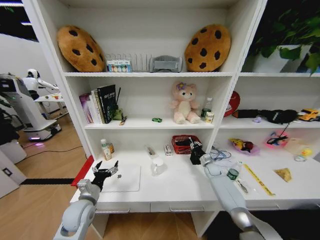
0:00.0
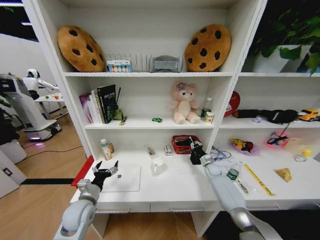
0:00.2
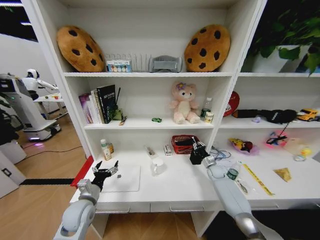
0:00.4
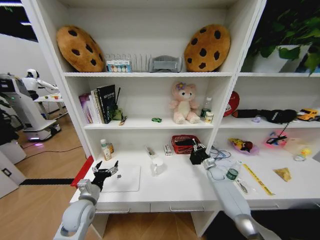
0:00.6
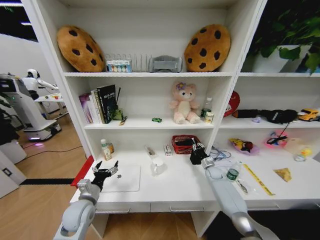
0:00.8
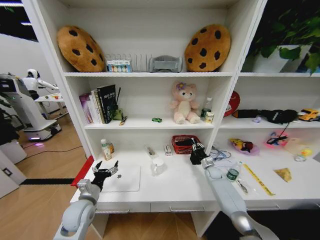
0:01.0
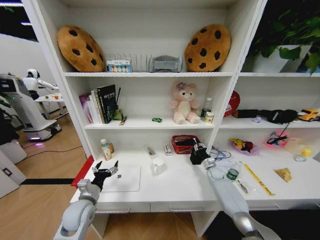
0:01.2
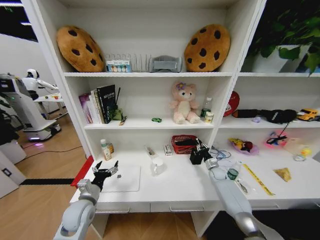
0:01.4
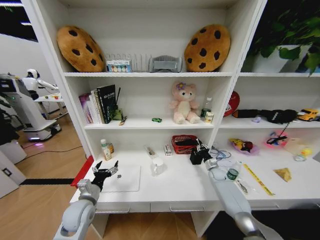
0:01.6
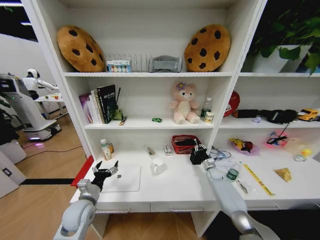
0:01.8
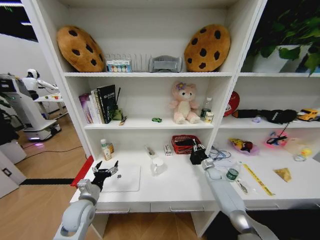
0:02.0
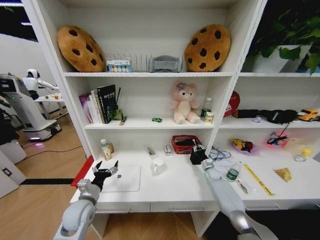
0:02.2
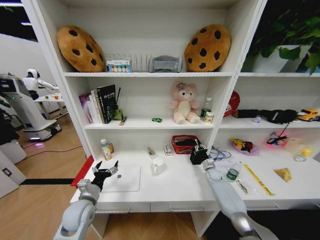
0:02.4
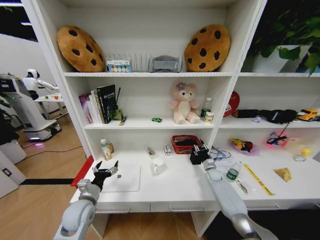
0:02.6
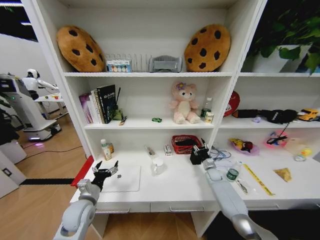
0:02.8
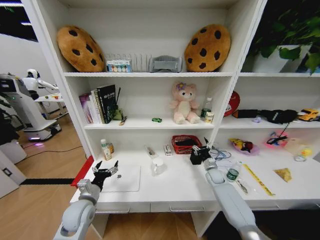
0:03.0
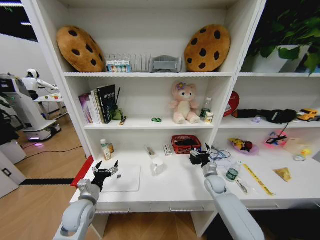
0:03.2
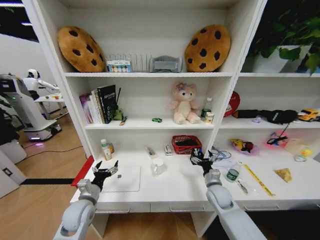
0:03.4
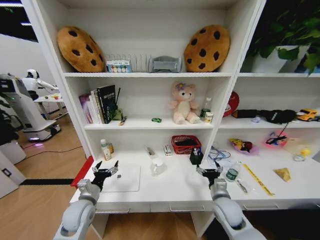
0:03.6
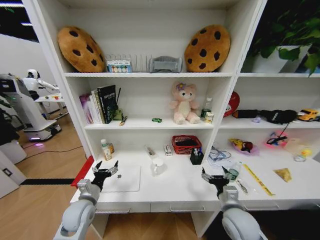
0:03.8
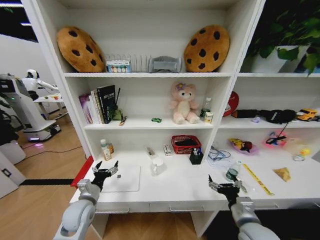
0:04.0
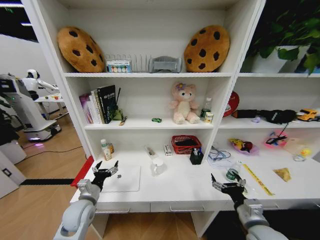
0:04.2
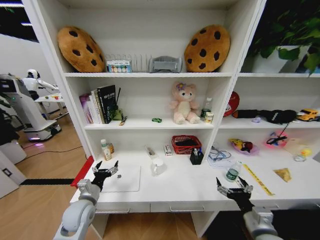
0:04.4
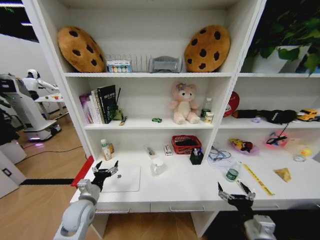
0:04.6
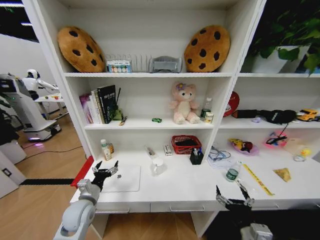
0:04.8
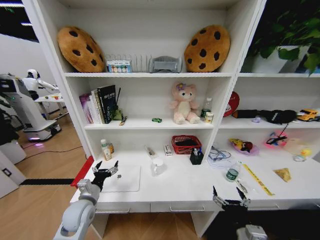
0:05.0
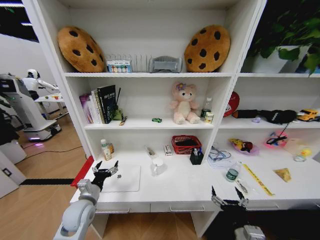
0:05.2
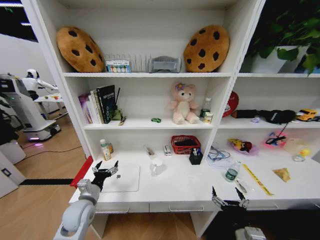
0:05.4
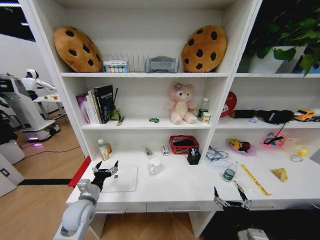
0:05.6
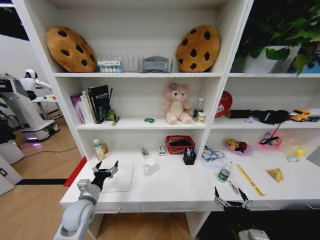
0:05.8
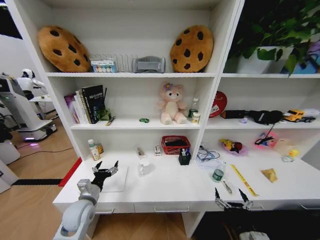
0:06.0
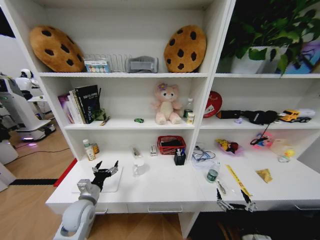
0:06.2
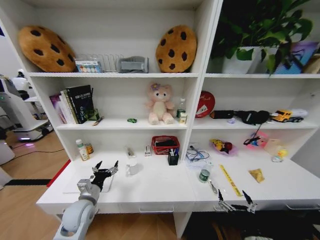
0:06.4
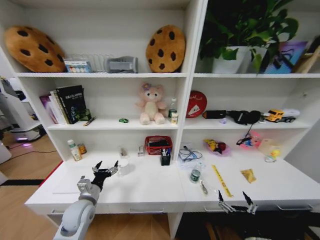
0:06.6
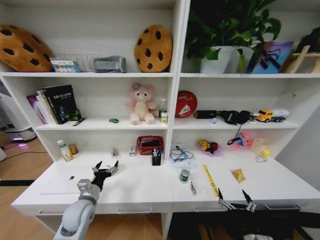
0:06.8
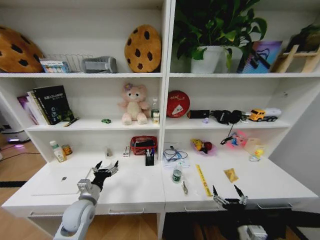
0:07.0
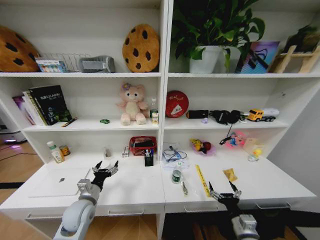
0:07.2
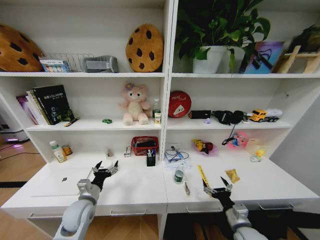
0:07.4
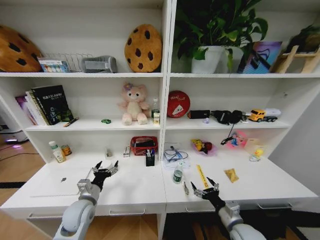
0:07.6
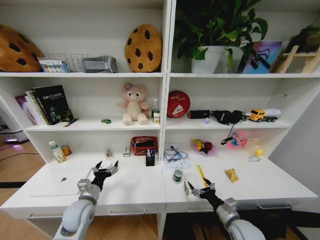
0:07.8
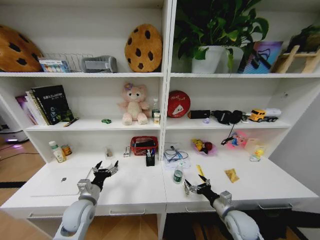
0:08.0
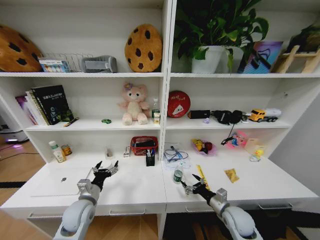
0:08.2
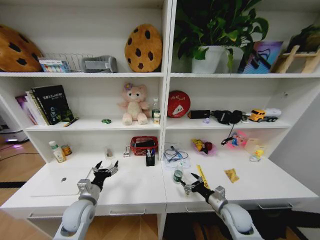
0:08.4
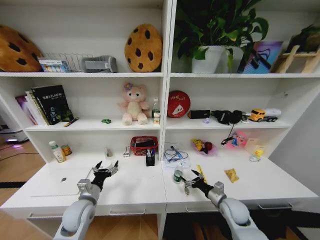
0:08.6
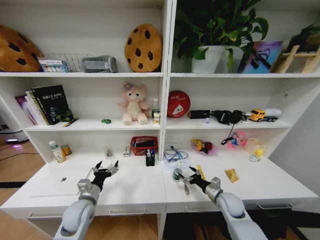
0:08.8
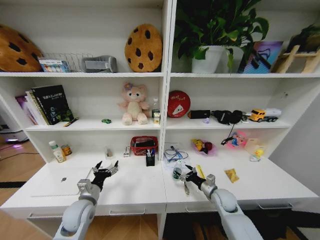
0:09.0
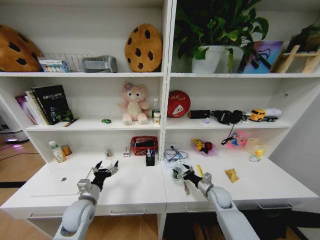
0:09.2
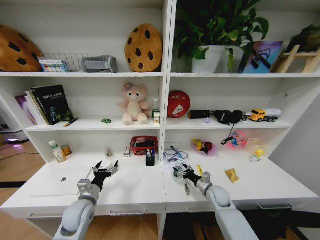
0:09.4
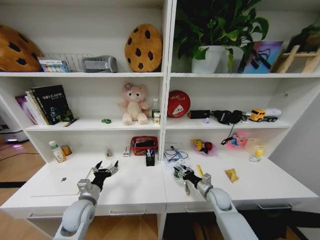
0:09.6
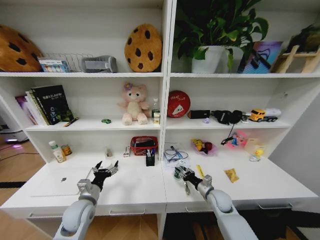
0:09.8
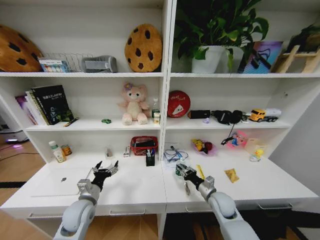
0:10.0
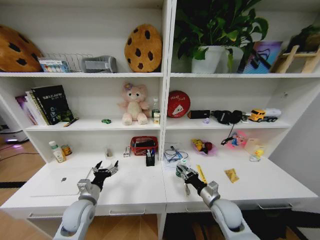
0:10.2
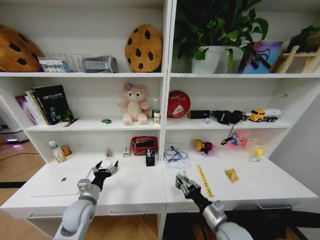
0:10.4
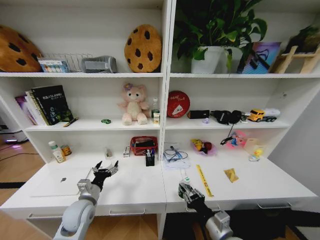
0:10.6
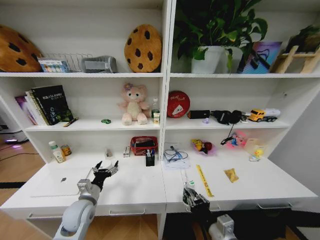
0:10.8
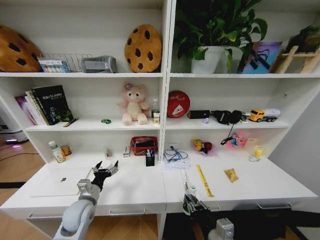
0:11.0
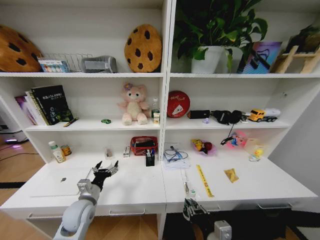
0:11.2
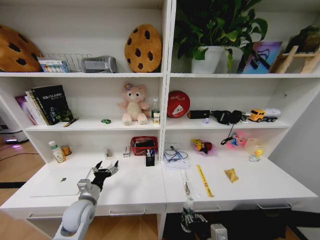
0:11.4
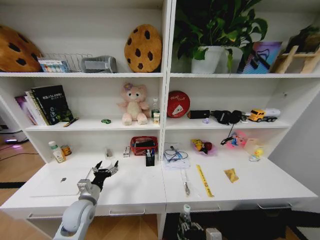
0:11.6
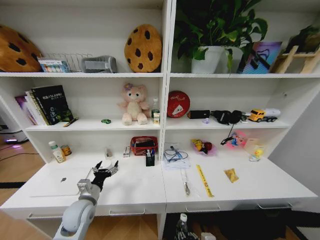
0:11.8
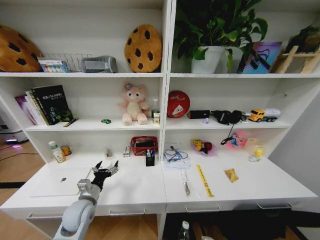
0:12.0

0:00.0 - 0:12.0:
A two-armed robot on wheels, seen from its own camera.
Task of the whole recording: Organize the objects on the table.
0:00.0 - 0:01.6: There are only small adjustments of the grippers.
0:01.6 - 0:03.0: The right gripper moves about 5 cm, and opens its fingers.
0:03.0 - 0:04.4: The right gripper goes roughly 30 cm backward.
0:04.4 - 0:06.0: The right gripper shifts approximately 5 cm backward.
0:06.0 - 0:07.6: The right gripper moves forward, some 10 cm.
0:07.6 - 0:09.0: The right gripper moves forward, approximately 15 cm.
0:09.0 - 0:10.4: The right gripper shifts approximately 20 cm backward, to the left and upward, and closes its fingers.
0:10.4 - 0:12.0: The right gripper goes approximately 10 cm backward and to the left.

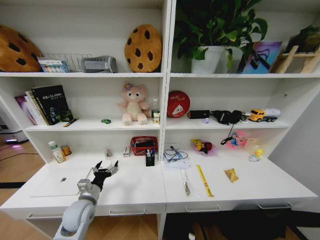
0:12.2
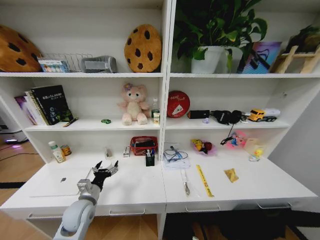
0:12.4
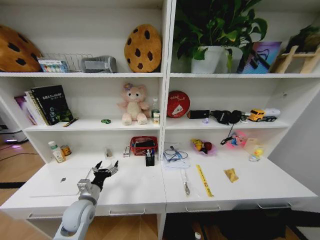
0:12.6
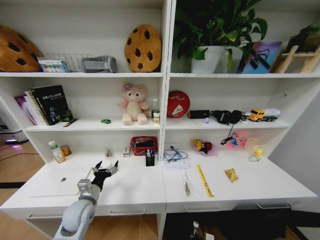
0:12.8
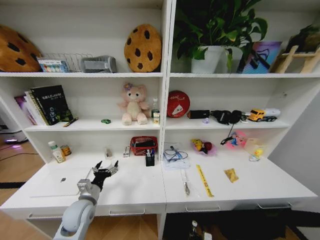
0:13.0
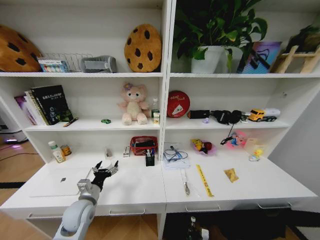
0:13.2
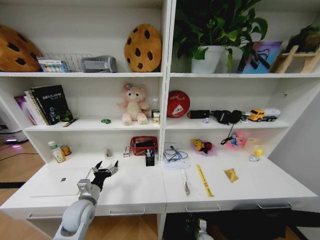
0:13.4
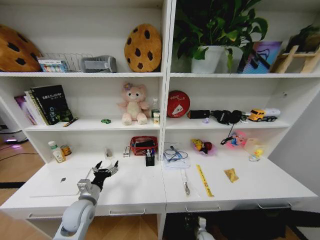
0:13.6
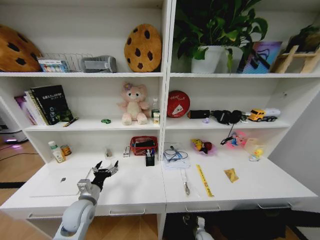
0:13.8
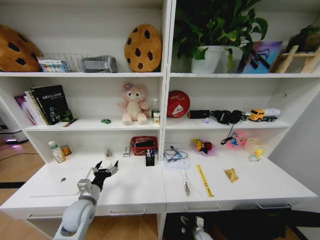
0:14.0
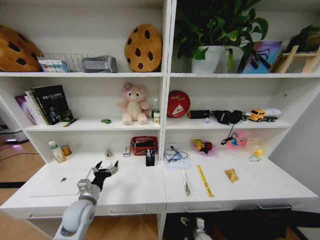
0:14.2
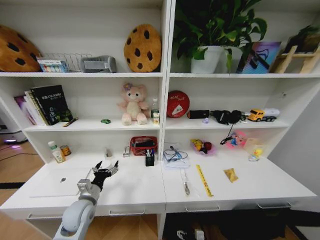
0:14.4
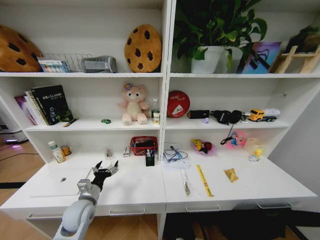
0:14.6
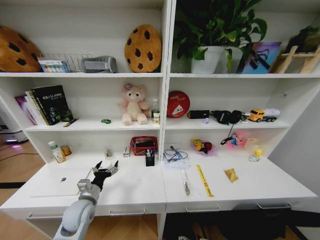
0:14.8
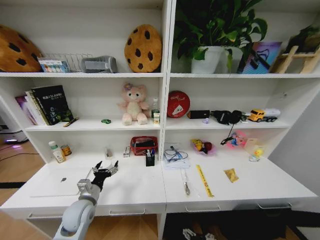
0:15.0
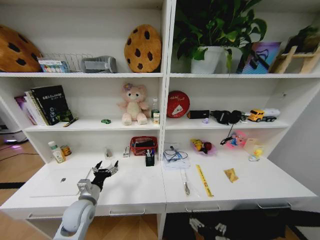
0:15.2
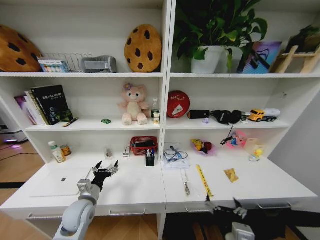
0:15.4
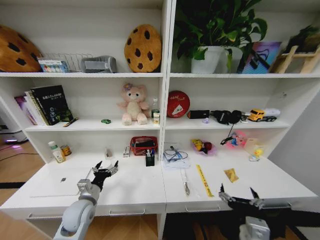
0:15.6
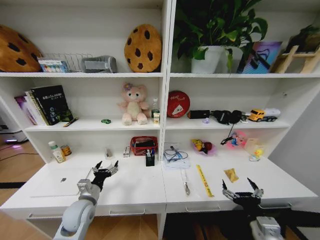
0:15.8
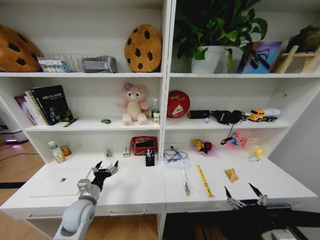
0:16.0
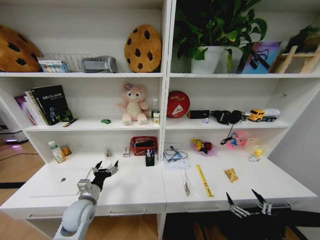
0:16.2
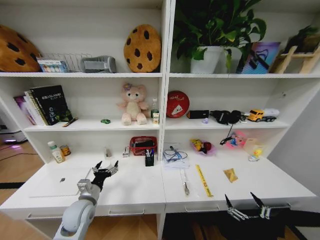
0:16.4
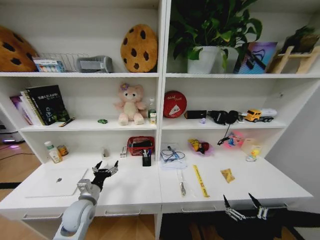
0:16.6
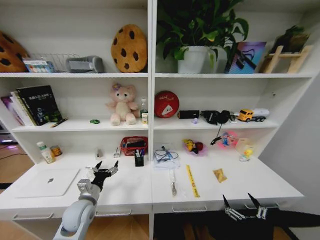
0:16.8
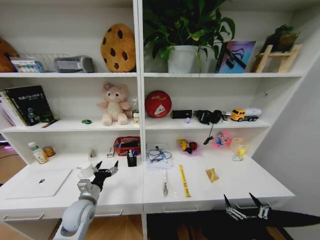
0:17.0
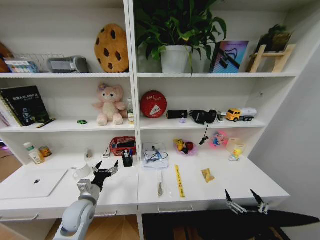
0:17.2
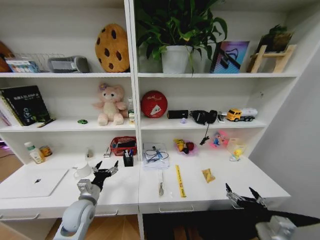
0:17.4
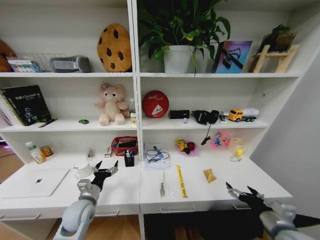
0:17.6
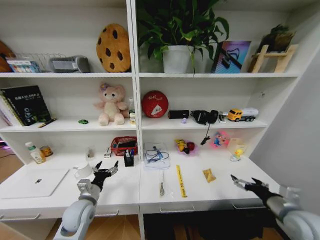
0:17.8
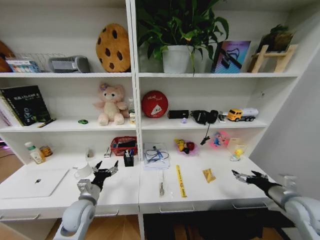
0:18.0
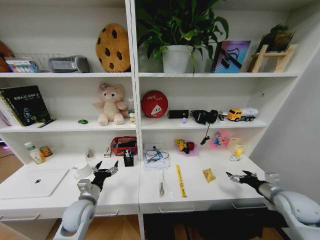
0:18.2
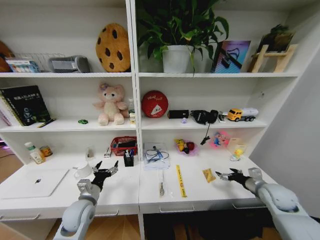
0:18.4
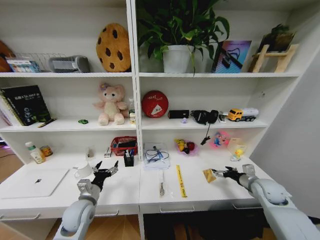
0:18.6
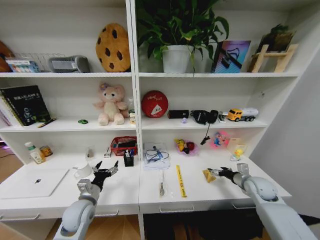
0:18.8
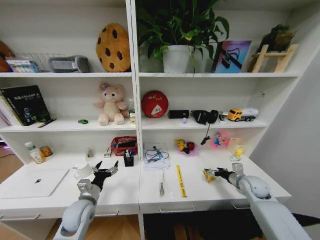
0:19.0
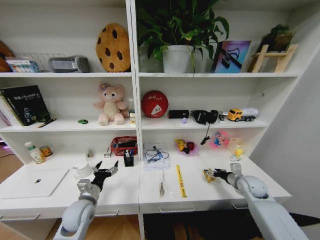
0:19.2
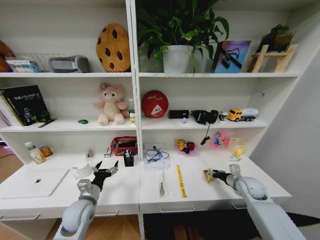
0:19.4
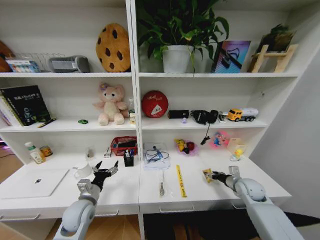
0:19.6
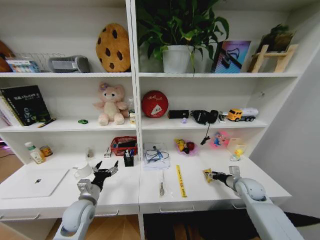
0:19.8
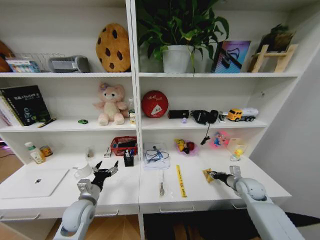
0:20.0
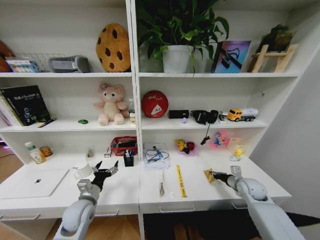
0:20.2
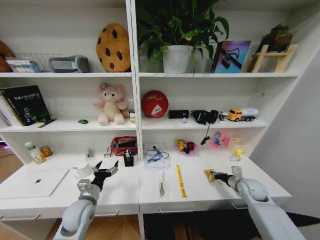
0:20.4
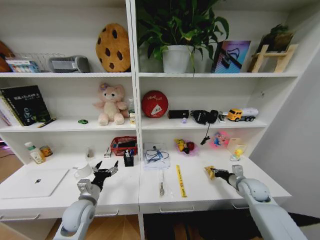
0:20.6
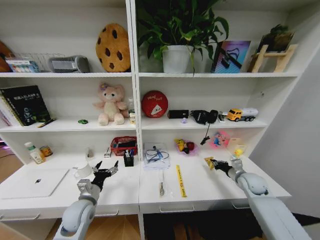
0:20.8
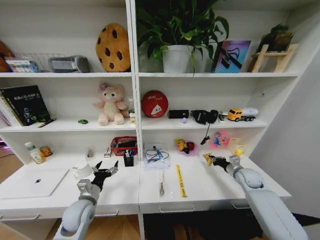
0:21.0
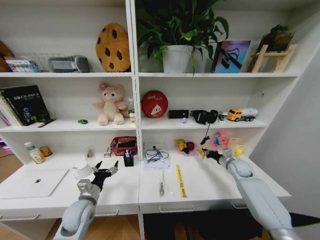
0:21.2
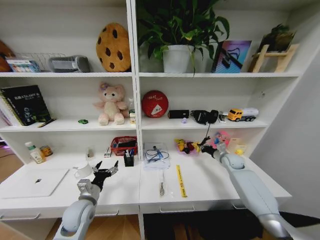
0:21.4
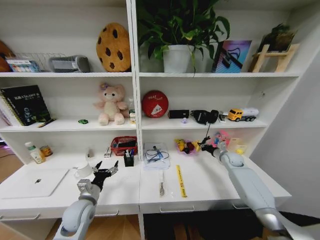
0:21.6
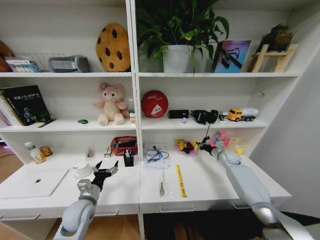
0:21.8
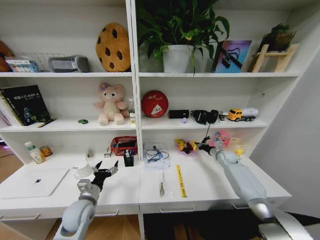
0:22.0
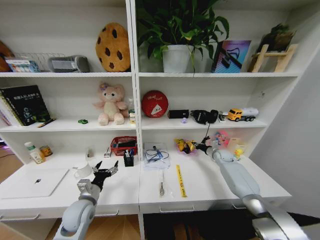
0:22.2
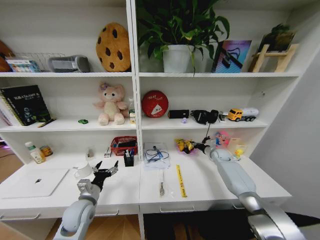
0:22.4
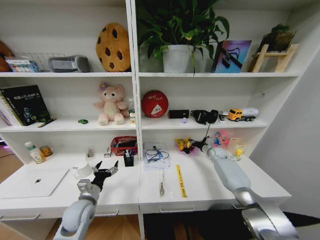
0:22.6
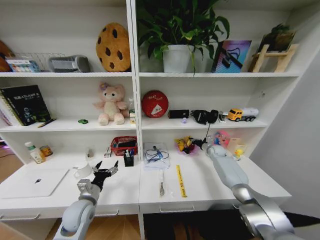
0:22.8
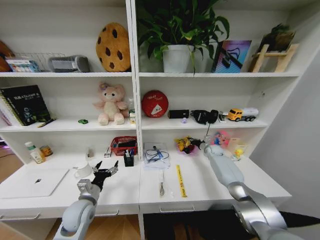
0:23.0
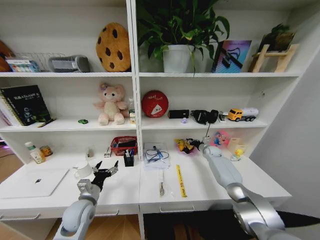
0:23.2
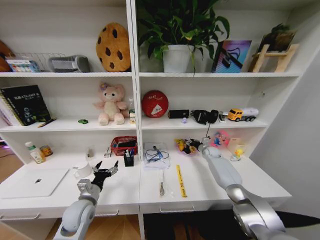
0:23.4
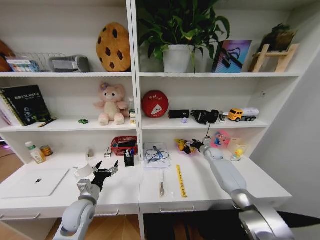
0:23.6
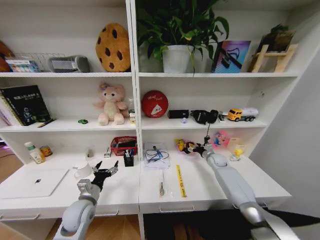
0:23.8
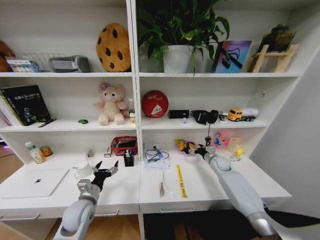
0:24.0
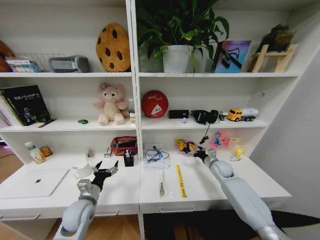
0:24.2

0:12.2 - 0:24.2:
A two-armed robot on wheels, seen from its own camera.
Task of the whole recording: Organize the objects on the table.
0:13.8 - 0:15.2: The right gripper goes about 40 cm upward and backward, and opens its fingers.
0:15.2 - 0:16.6: The right gripper shifts about 15 cm to the right.
0:16.6 - 0:18.2: The right gripper goes roughly 25 cm forward and to the right.
0:18.2 - 0:19.8: The right gripper travels forward, downward and to the left by approximately 10 cm, and closes up.
0:19.8 - 0:21.2: The right gripper is displaced forward by about 10 cm, and closes its fingers.
0:21.2 - 0:22.6: The right gripper moves forward, some 15 cm.
0:22.6 - 0:24.2: The right gripper moves backward, about 10 cm, and opens.
